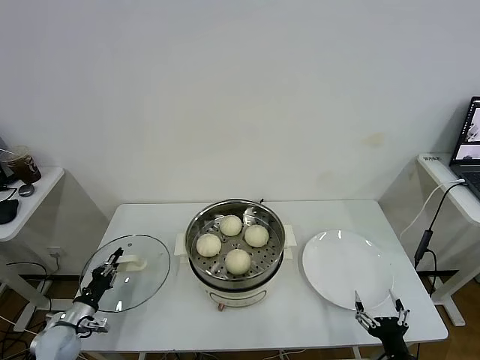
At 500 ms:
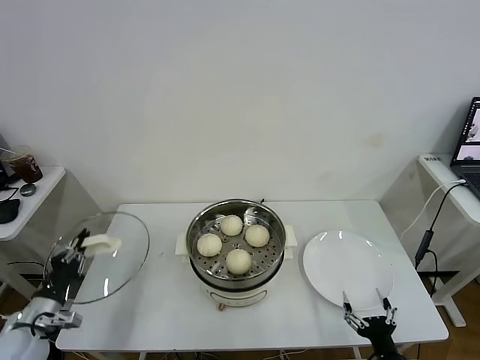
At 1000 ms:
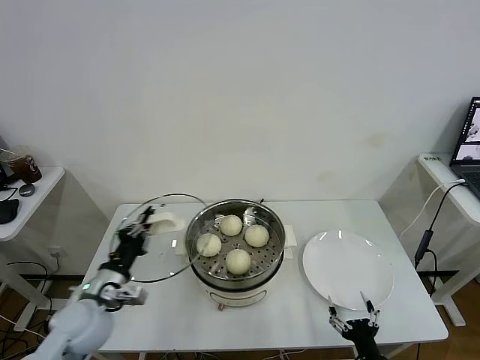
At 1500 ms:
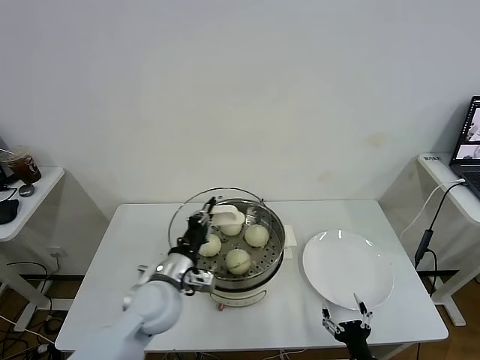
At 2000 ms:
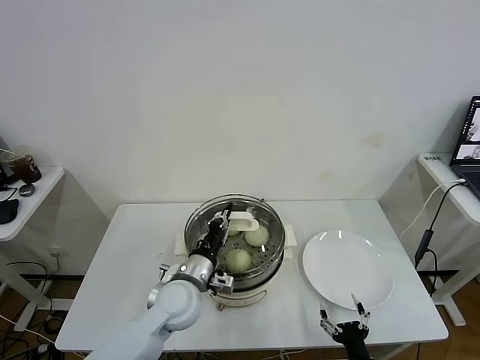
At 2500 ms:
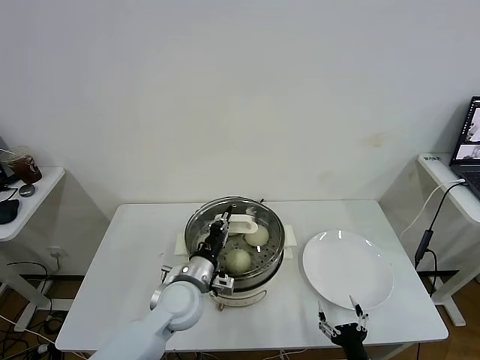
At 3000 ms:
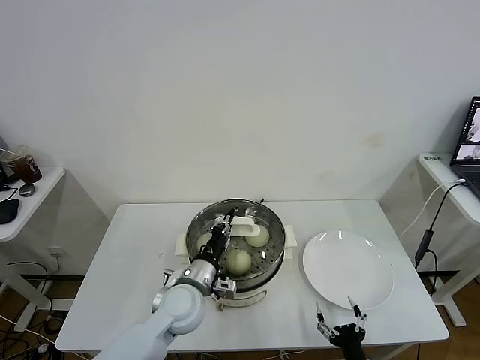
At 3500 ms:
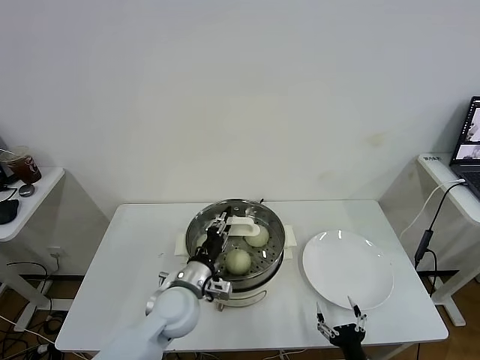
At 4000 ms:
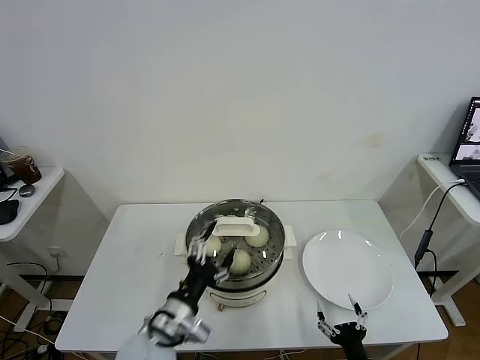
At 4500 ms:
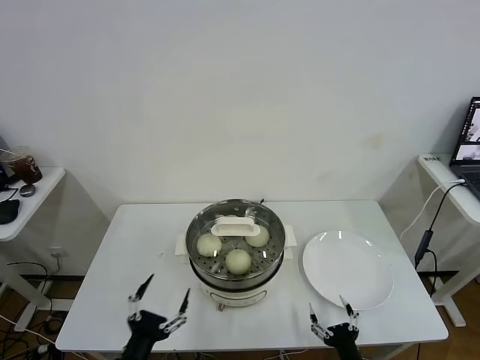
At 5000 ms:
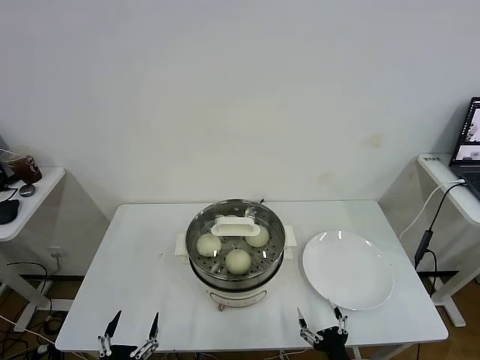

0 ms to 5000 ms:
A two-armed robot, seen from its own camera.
Task of the whole recording: take steamed baozi put them in steamer.
Step, 0 ms to 4000 ms: Place the pot lid on the steamer with left gripper.
0 ms to 2500 ms: The left gripper goes roughly 35 cm to the right and upward; the right gripper travels to the left by some 5 cm.
2500 ms to 5000 ms: The left gripper heads backward and to the left, covering approximately 30 cm, and opens up.

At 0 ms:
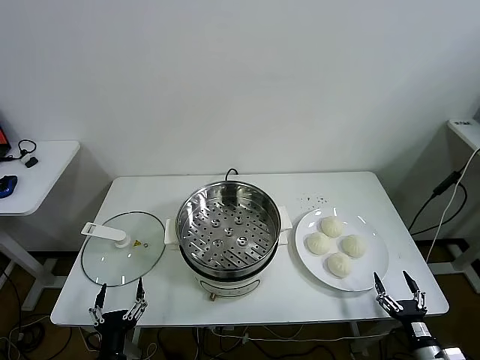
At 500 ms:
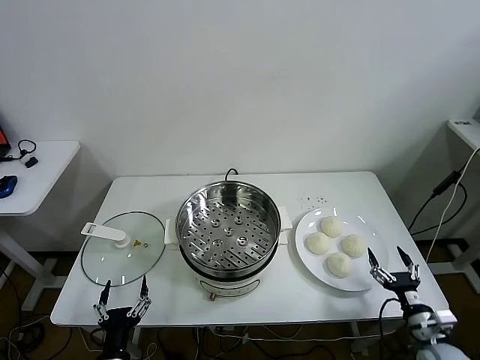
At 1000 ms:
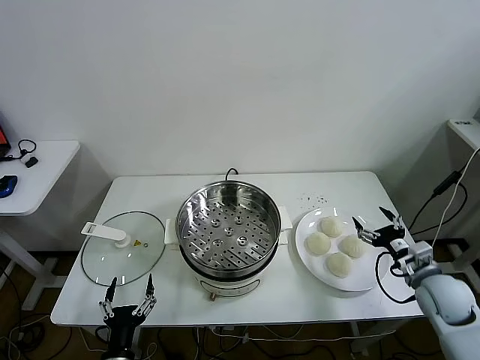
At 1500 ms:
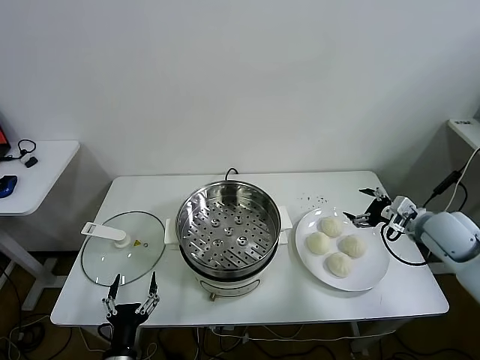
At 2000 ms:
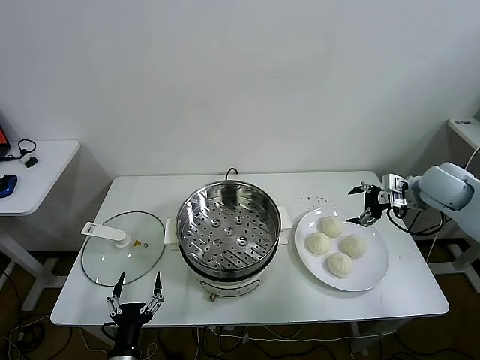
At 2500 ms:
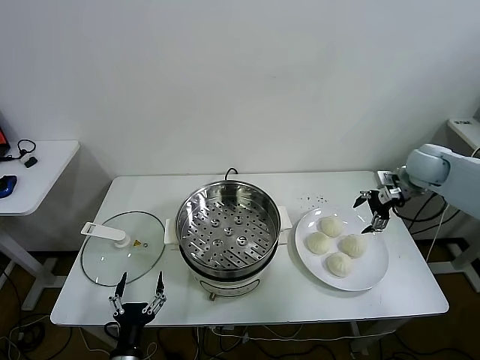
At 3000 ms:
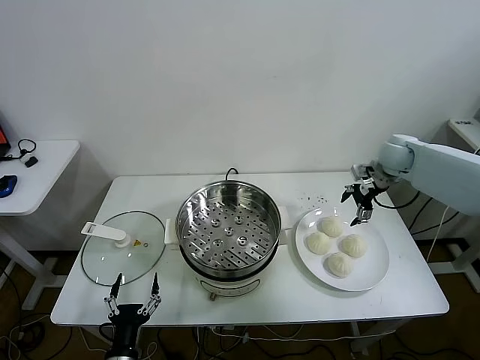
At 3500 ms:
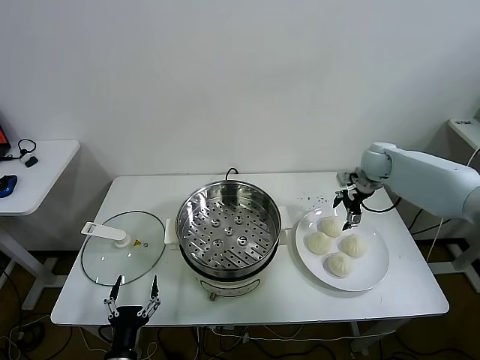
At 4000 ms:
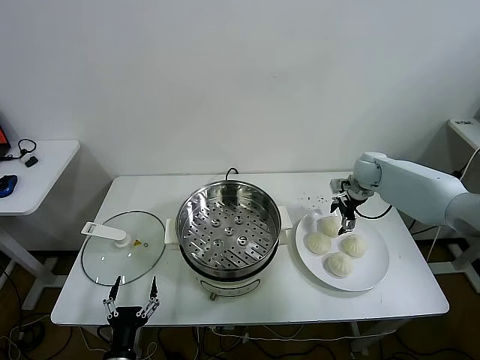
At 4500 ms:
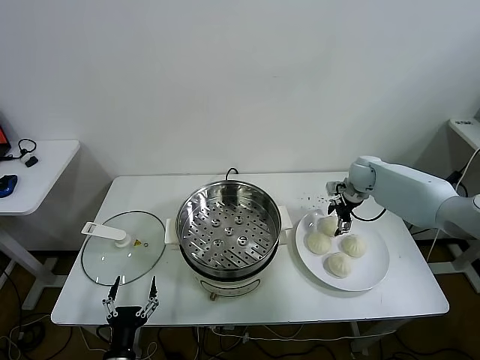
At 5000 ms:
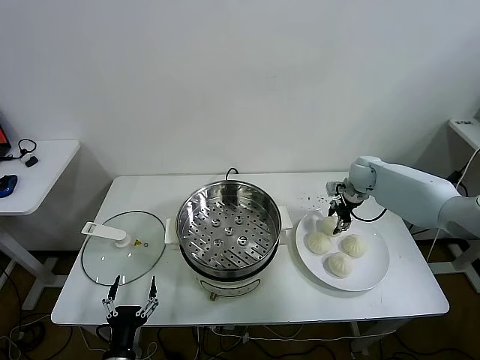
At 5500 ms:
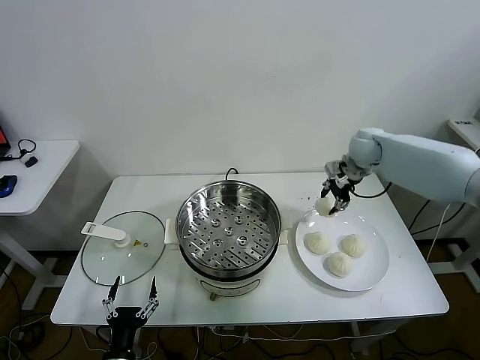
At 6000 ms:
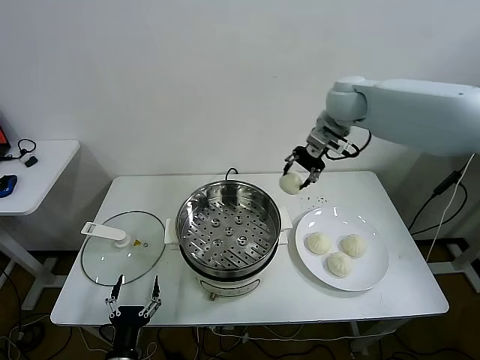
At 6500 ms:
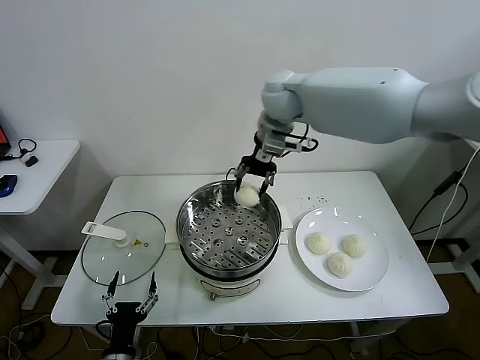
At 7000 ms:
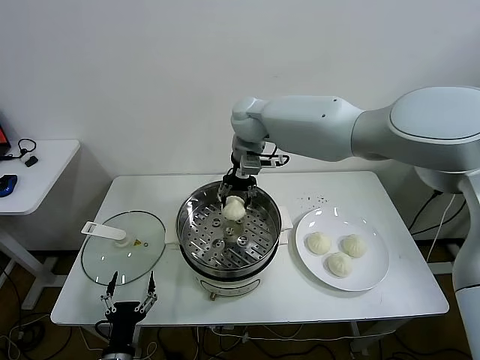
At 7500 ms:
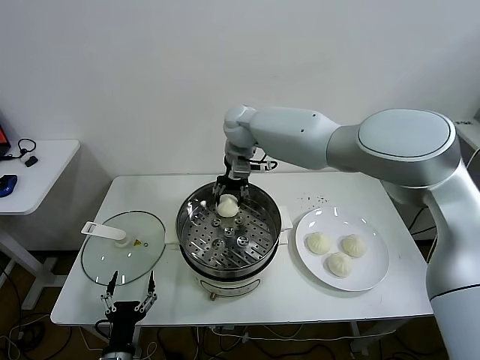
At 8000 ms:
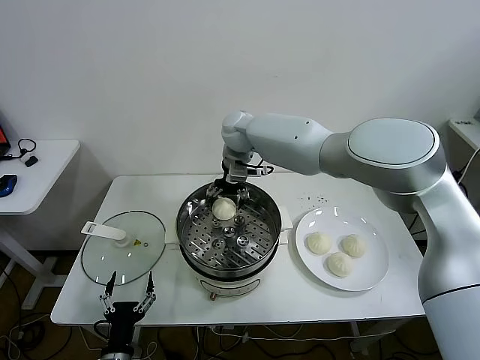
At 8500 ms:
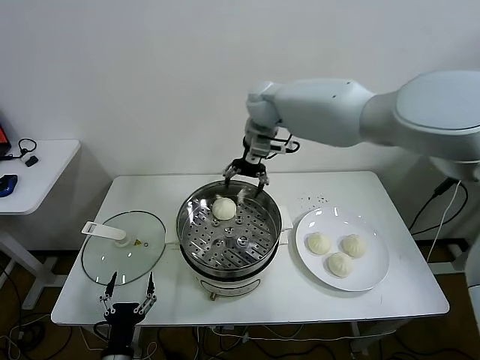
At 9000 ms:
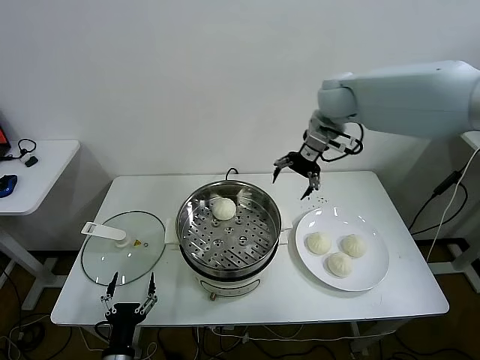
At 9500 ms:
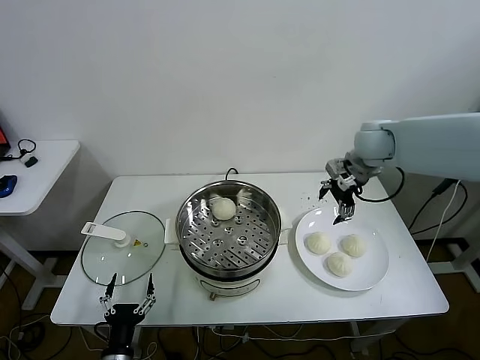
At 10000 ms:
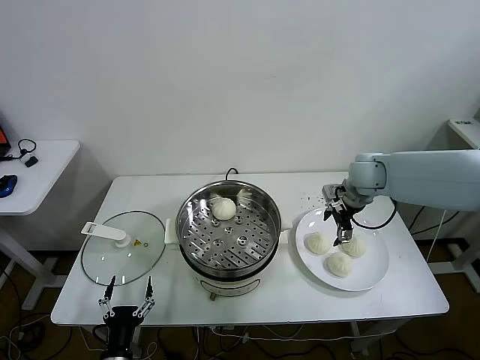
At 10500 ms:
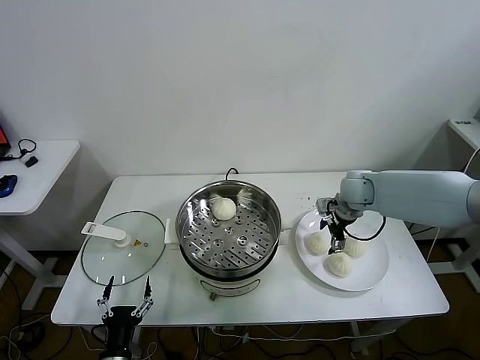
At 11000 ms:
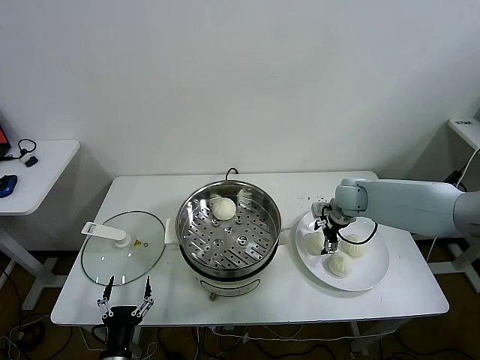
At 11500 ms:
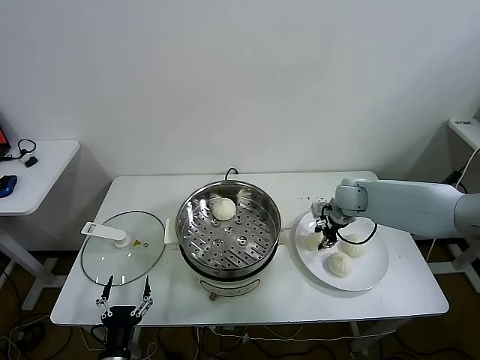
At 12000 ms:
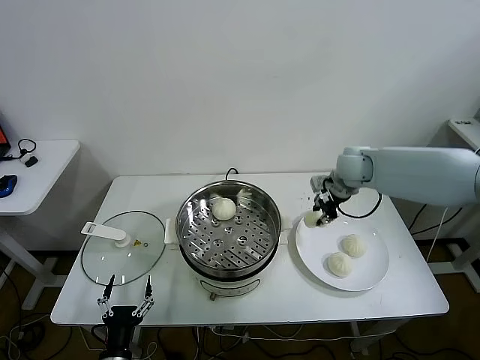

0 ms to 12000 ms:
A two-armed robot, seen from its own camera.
Task of the whole recording: take steamed baozi put them in steamer.
Step, 0 ms to 5000 ms: Grasp the baozi in the plate with right gripper.
Step, 5500 ms to 8000 ms: Place the baozi on the steamer with right gripper.
Step, 8500 ms to 11000 ms: Grasp the baozi in the plate with right gripper.
2000 ms to 4000 ms: The right gripper heads forward, downward and to the left, covering roughly 15 cm.
4000 ms to 6000 ms: The right gripper goes roughly 30 cm upward and to the left, and closes its fingers.
6000 ms to 8000 ms: The right gripper moves to the left and downward, about 20 cm, and opens.
8000 ms to 10000 ms: The right gripper shifts approximately 30 cm to the right.
10000 ms to 12000 ms: The right gripper moves some 10 cm downward and comes back, and closes up.

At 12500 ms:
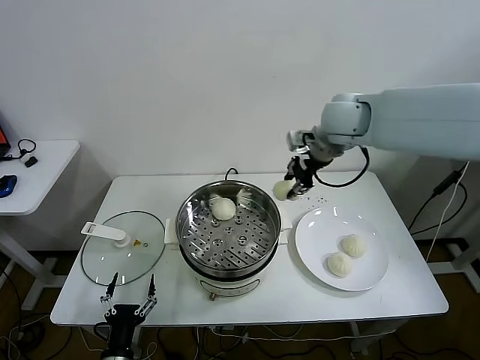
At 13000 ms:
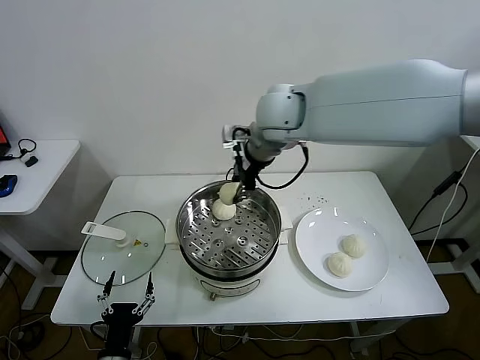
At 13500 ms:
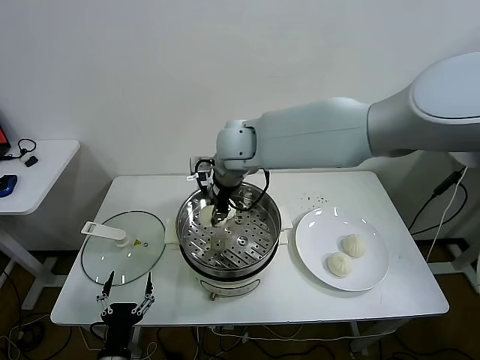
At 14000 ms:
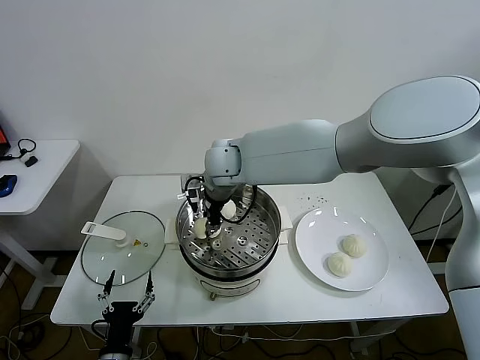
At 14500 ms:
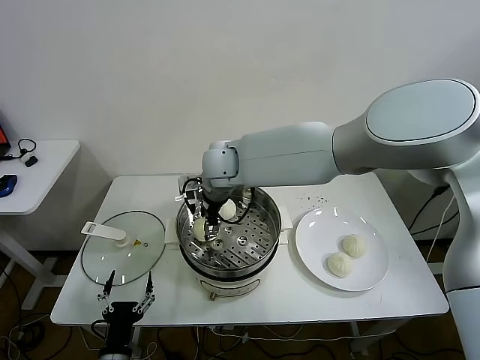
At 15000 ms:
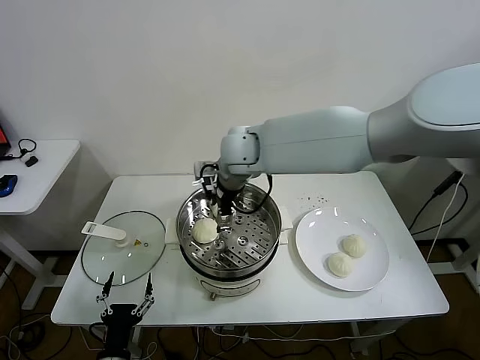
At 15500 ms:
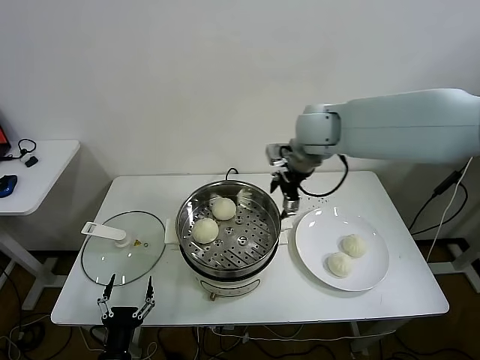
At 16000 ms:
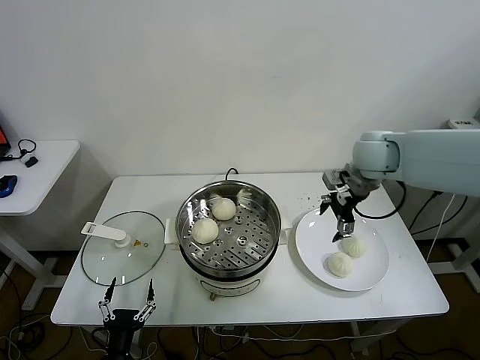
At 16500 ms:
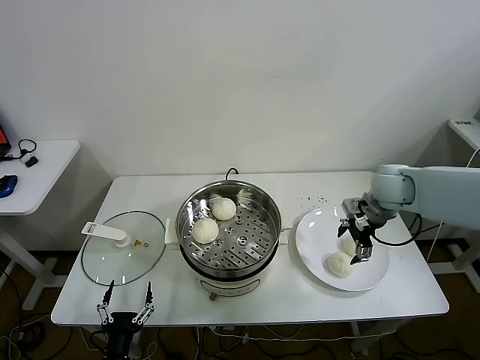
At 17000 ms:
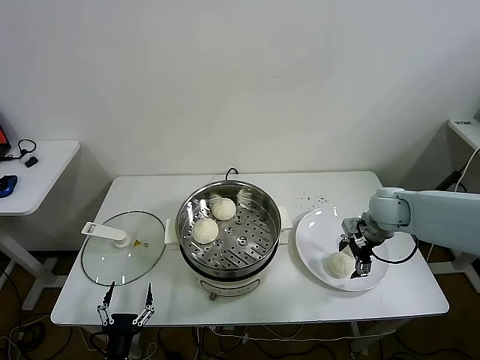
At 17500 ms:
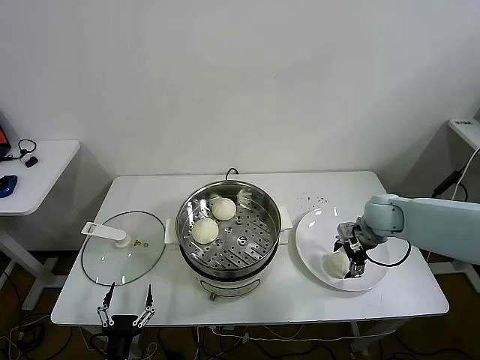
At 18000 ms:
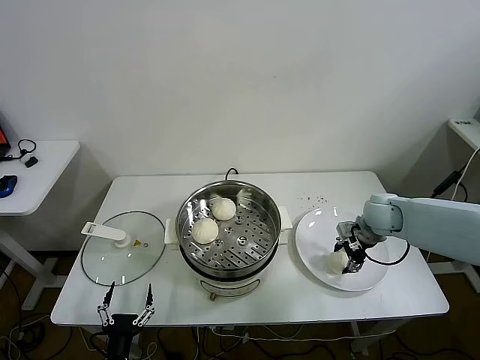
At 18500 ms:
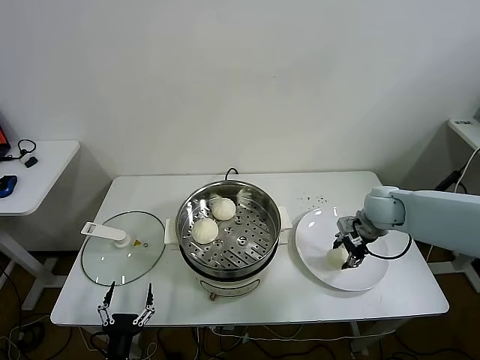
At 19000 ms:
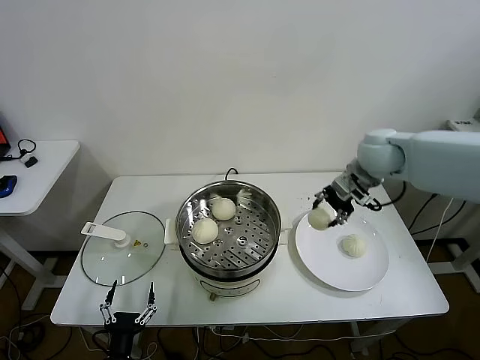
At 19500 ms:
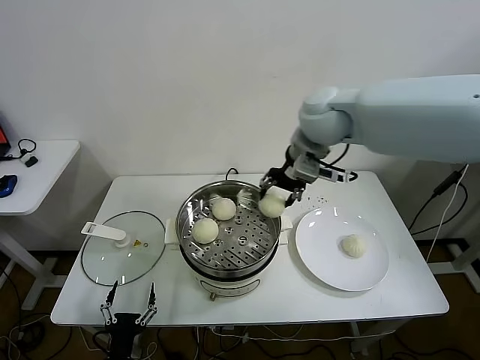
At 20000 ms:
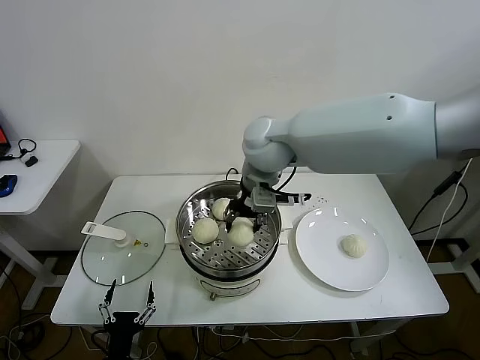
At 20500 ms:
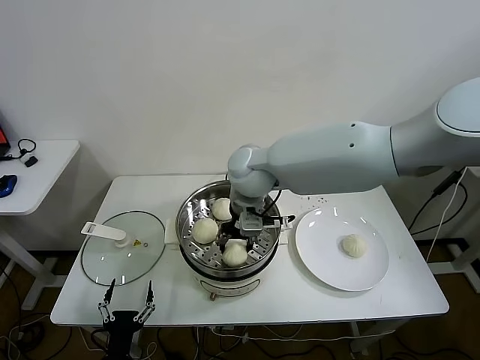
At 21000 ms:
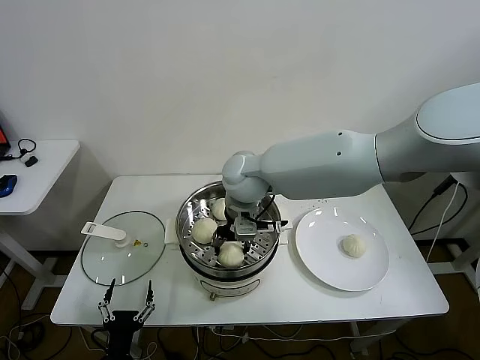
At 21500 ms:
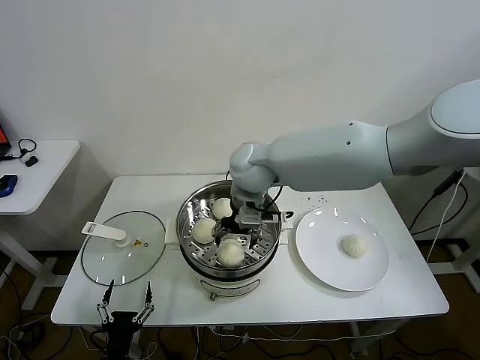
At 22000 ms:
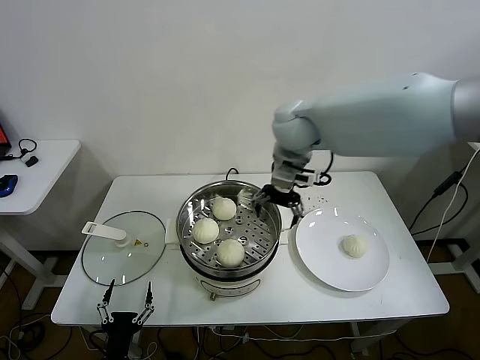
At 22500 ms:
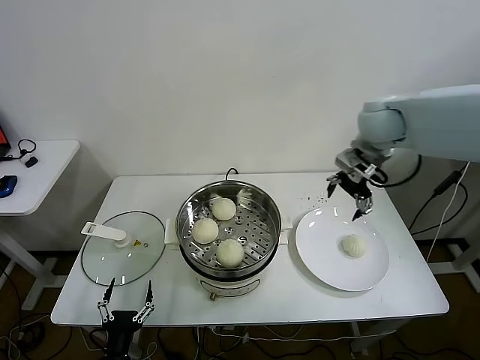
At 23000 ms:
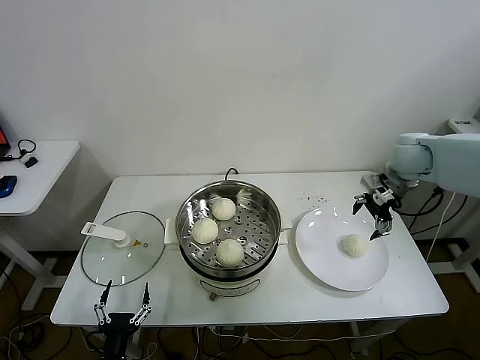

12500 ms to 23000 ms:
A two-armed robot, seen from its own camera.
Task of the whole recording: take steamed baozi put them in steamer.
Step, 12500 ms to 14500 ms: Place the baozi on the steamer with right gripper.
Step, 15000 ms to 18000 ms: Grasp the baozi in the plate with right gripper.
Step, 18500 ms to 21000 ms: Place the baozi on the steamer with right gripper.
12500 ms to 14500 ms: The right gripper goes approximately 25 cm to the left and downward, and opens up.
14500 ms to 16500 ms: The right gripper heads to the right, covering some 40 cm.
16500 ms to 19000 ms: The right gripper goes roughly 10 cm upward and to the left, and closes up.
19000 ms to 21000 ms: The right gripper is displaced to the left by approximately 30 cm.
21000 ms to 23000 ms: The right gripper travels to the right by about 35 cm.
